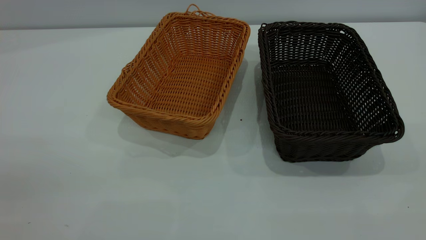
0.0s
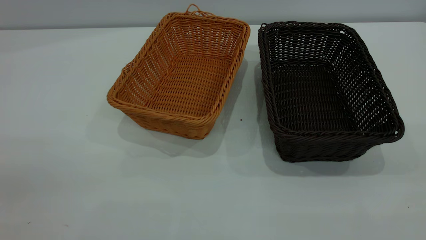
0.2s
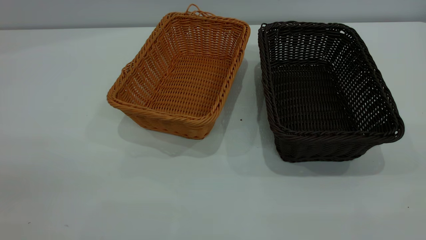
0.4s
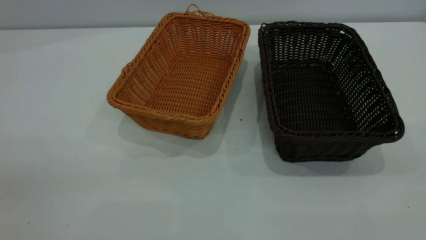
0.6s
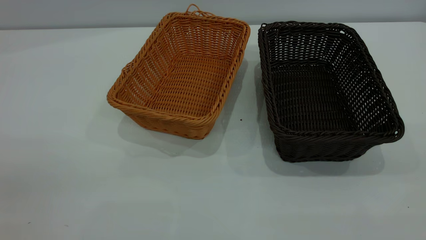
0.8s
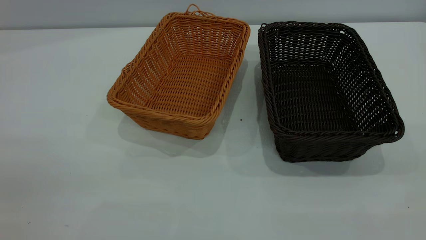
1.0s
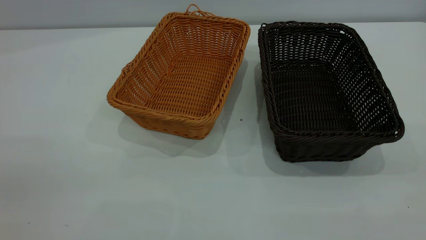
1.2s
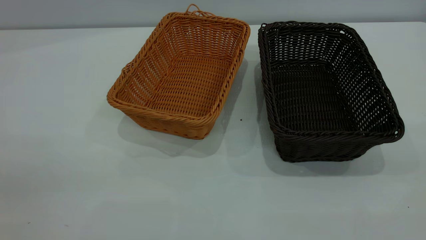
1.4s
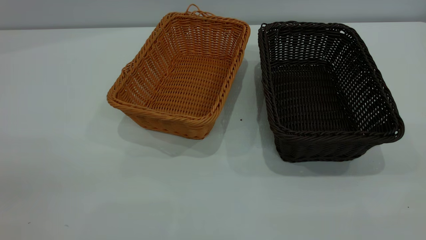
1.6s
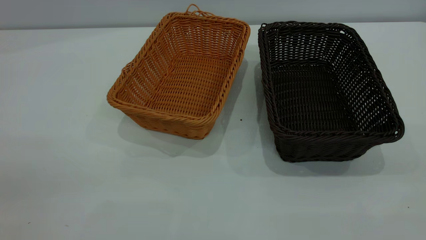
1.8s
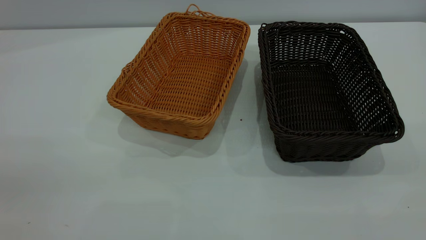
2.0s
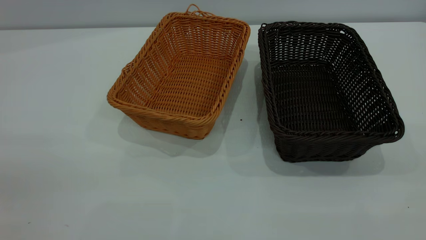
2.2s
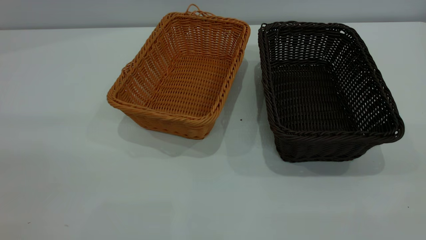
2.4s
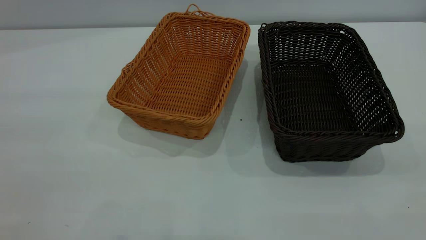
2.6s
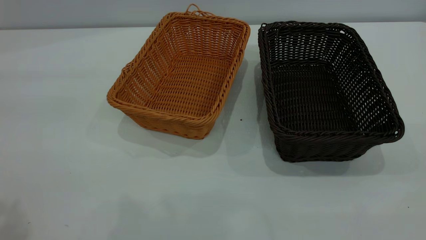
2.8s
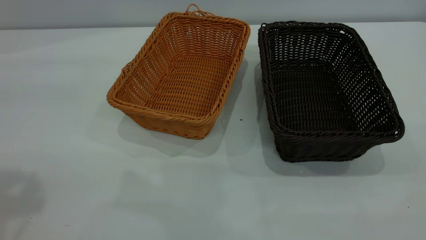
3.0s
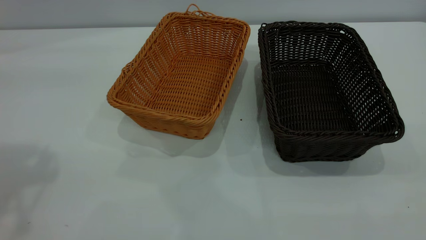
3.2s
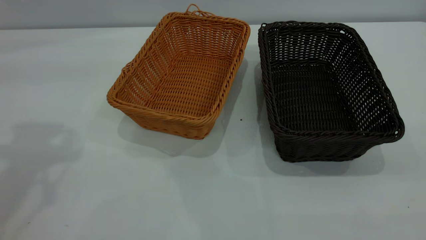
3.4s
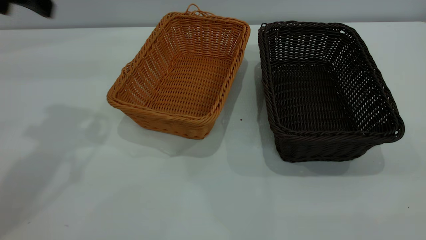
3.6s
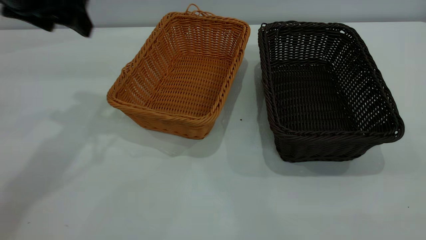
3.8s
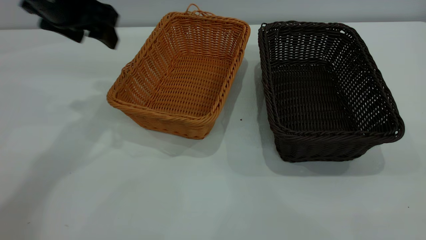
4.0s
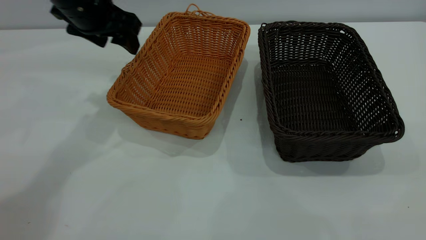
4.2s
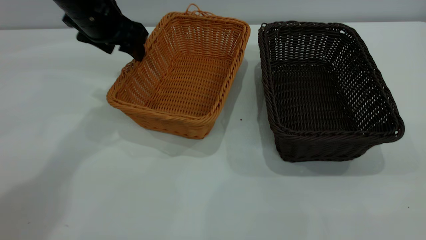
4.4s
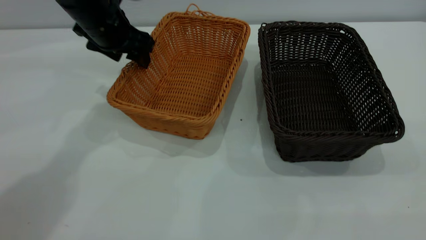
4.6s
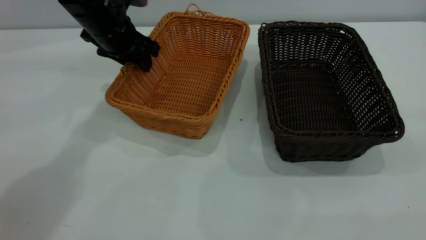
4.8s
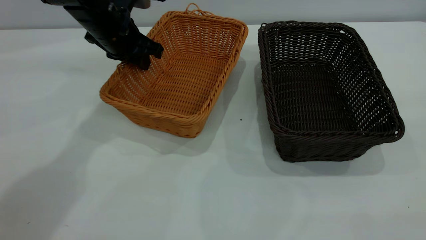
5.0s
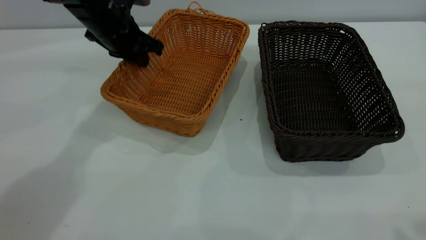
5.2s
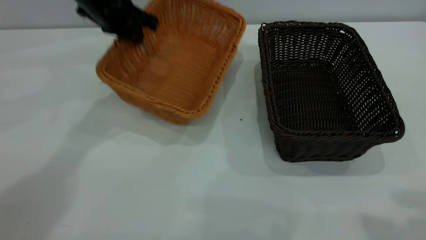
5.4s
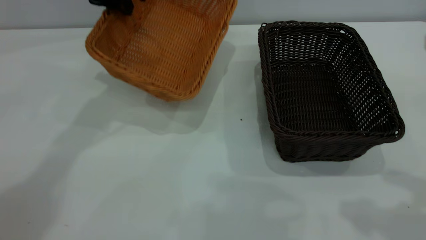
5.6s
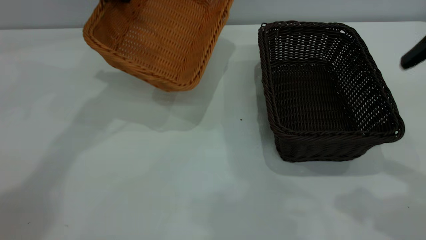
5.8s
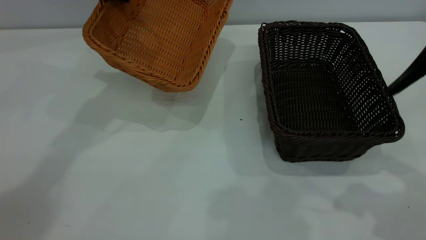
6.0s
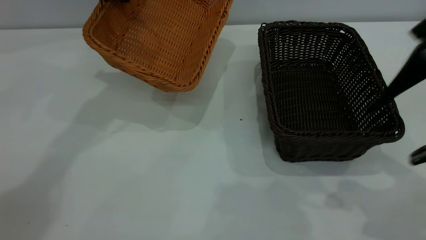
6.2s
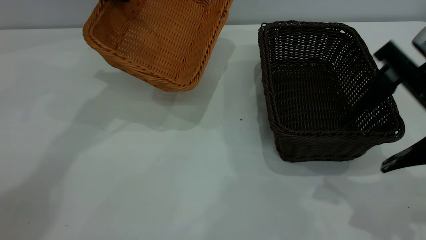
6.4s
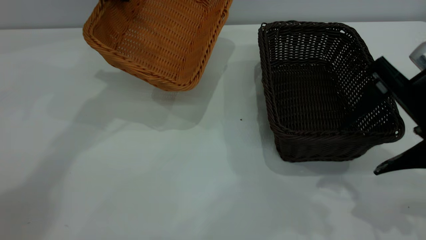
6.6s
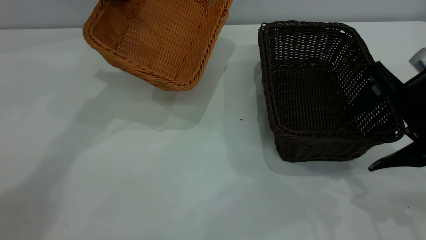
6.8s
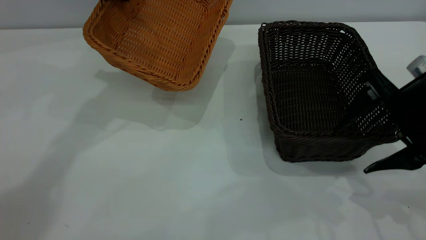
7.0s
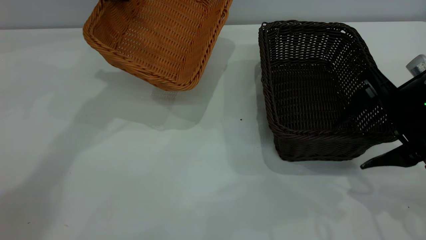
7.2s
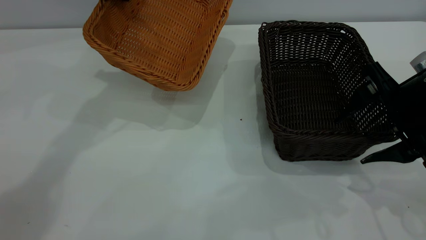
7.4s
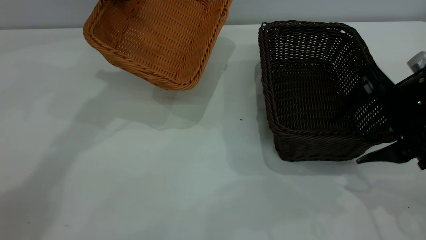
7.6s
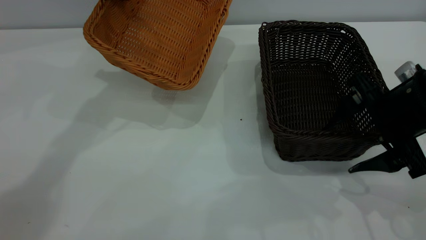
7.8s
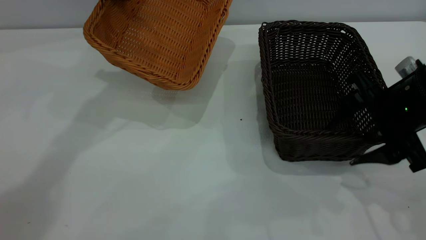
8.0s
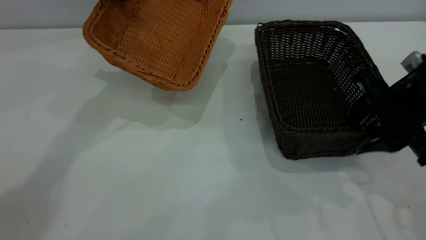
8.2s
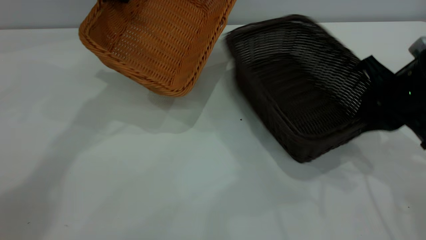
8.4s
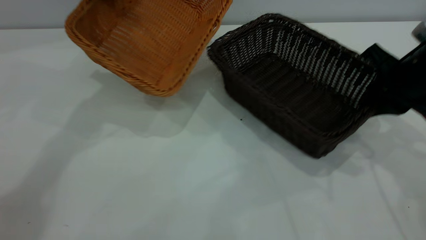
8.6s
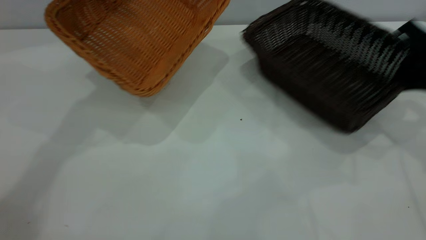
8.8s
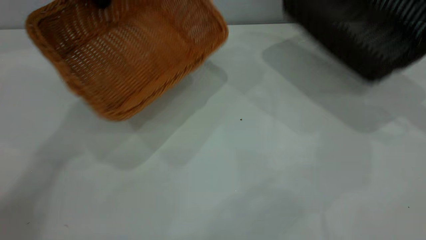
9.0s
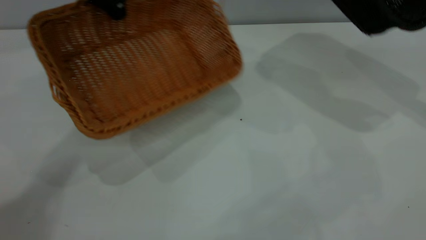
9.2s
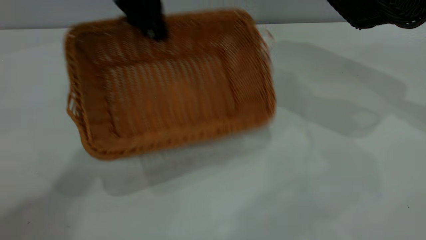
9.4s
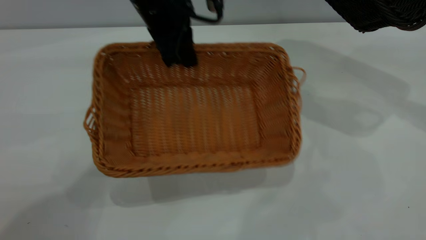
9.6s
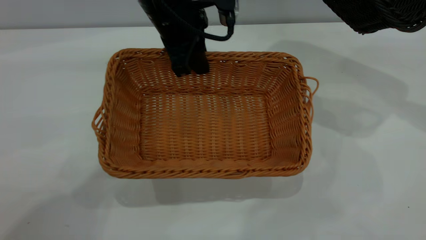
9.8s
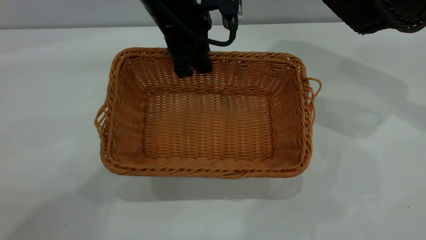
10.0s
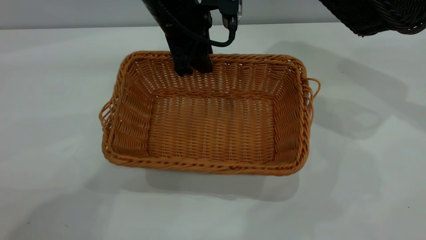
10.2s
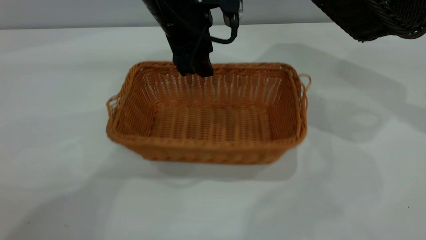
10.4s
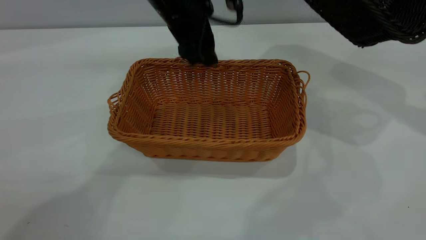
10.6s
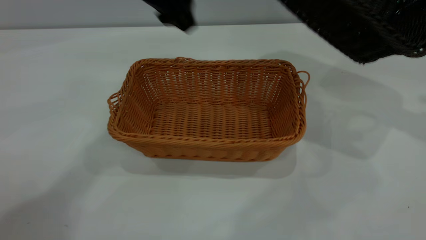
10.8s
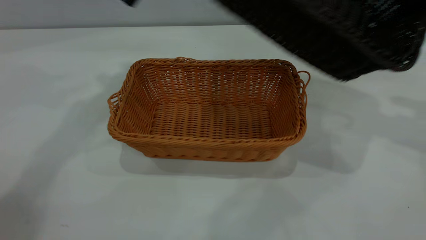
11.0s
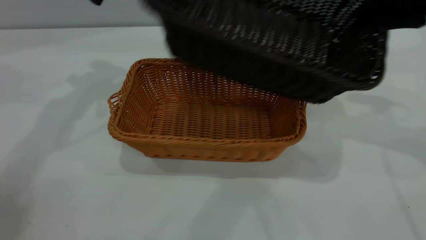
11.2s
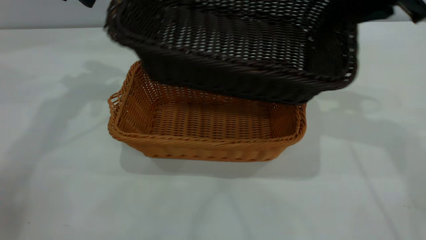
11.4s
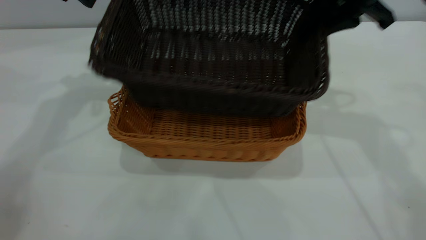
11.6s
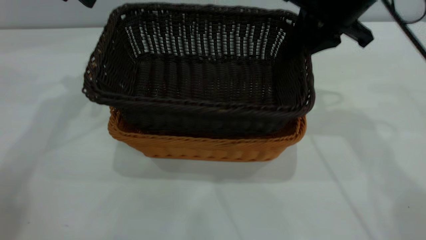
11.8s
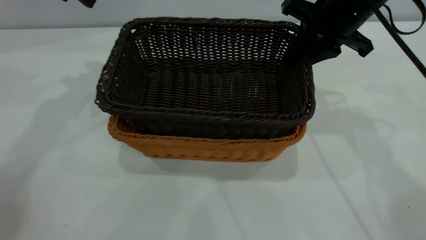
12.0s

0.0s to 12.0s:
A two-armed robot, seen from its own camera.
Task of the whole recording: the left gripper grasp the brown basket and place it in the center of the table, the right gripper grasp the black basket and place it inside the brown one.
Step, 0.0s to 8.6s: Pick up the light basket with the right gripper.
Step, 8.8s to 10.4s: Place the light-colored basket in the center.
0.0s to 1.6s: Neither gripper changes place.
3.0s to 4.4s: The left gripper goes some 30 cm forward, downward and to the right.
4.4s to 6.0s: The left gripper shifts approximately 5 cm upward, and closes; the right gripper travels forward and downward by about 25 cm.
6.0s to 7.6s: The right gripper moves downward and forward, approximately 15 cm.
7.6s to 9.0s: The right gripper heads to the right, forward and upward, covering about 20 cm, and closes up.
9.0s to 10.4s: The left gripper shifts approximately 15 cm to the right and downward, and opens its fingers.
10.4s to 12.0s: The two grippers go about 20 cm to the left.

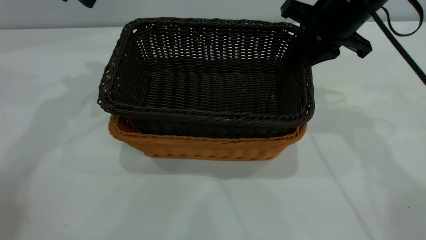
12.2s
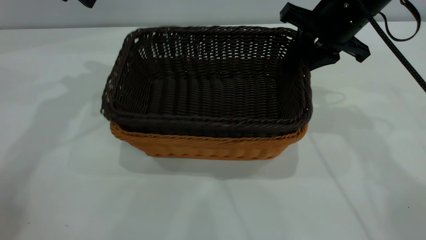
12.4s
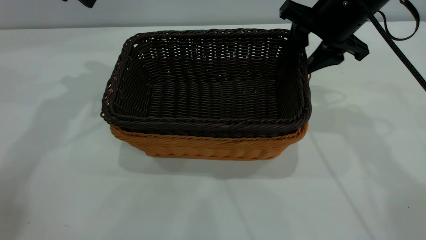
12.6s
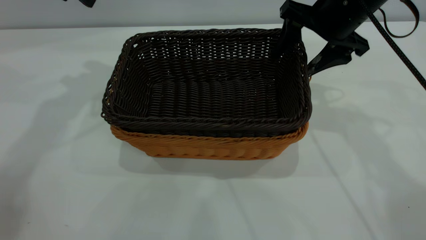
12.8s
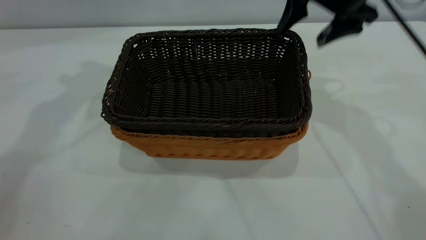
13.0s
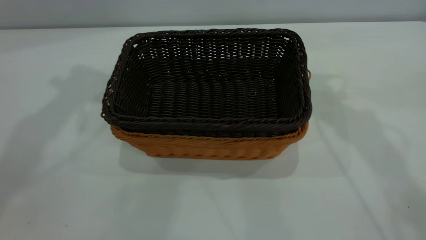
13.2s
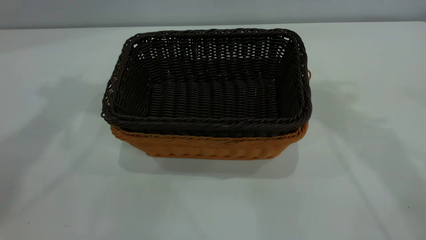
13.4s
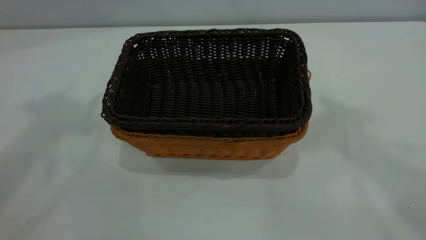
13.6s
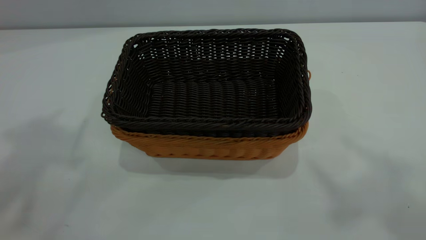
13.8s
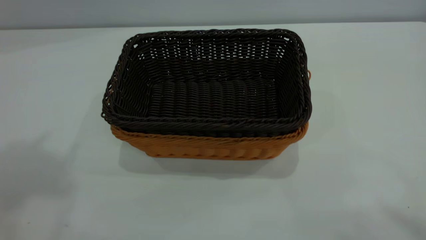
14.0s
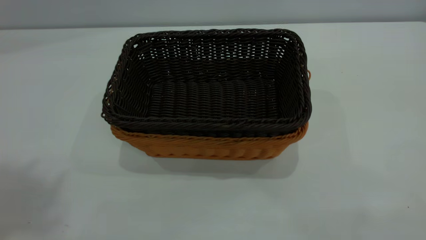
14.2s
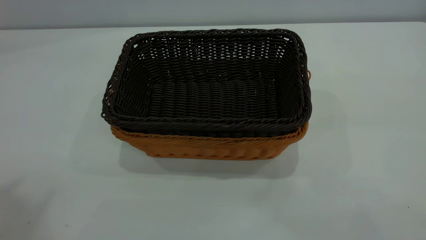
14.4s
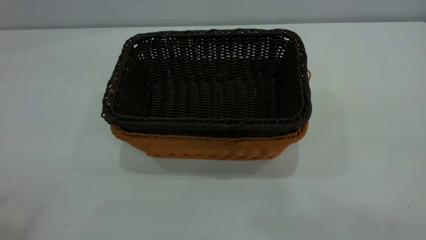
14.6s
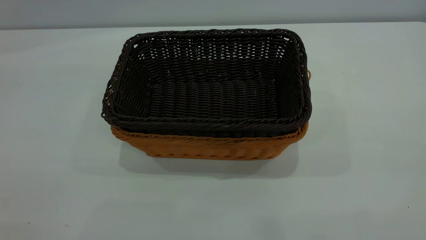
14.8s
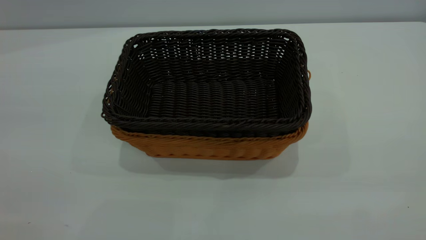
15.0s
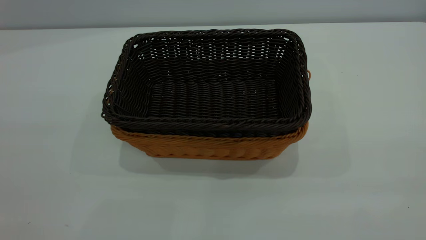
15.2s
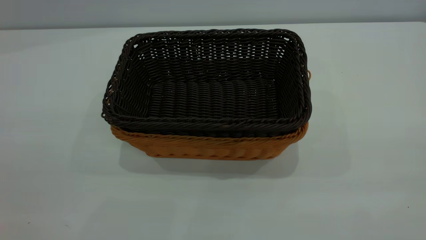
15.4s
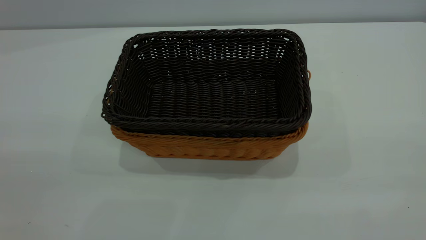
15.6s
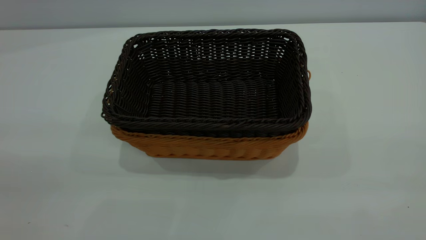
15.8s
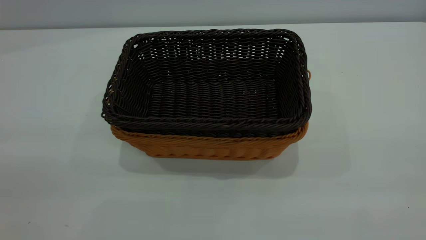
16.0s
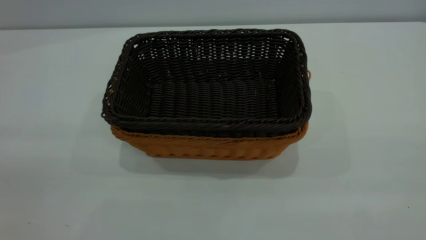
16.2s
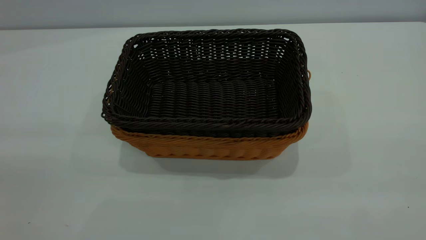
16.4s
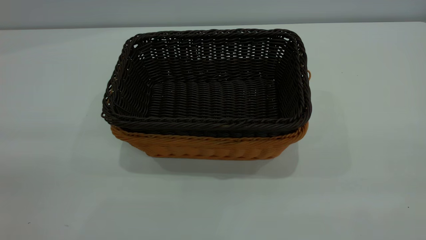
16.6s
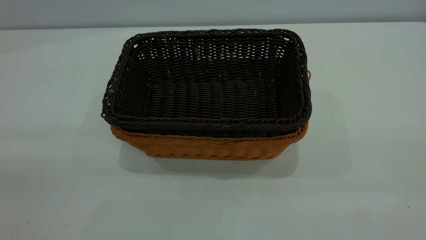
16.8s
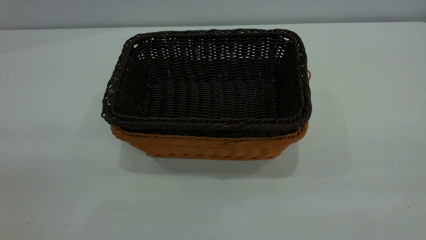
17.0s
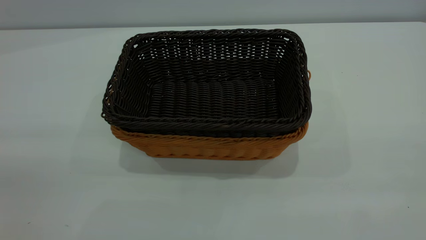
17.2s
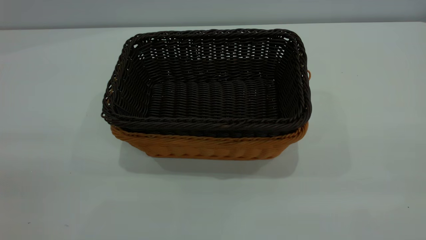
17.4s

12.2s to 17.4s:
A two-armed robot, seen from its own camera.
Task of the whole recording: the left gripper grasp the brown basket and place it in the center of the table, the right gripper grasp the black basket and place it inside the brown one.
12.2s to 14.0s: The grippers both shift upward and backward by about 40 cm. The right gripper opens its fingers.
